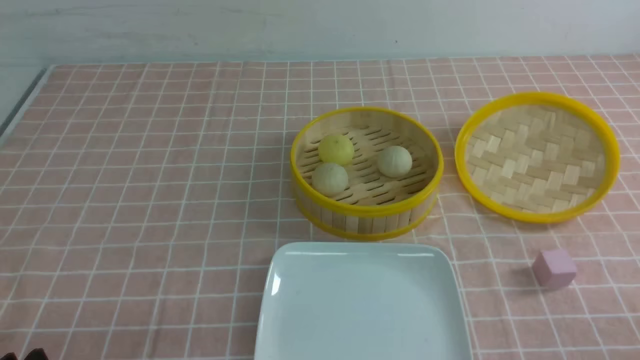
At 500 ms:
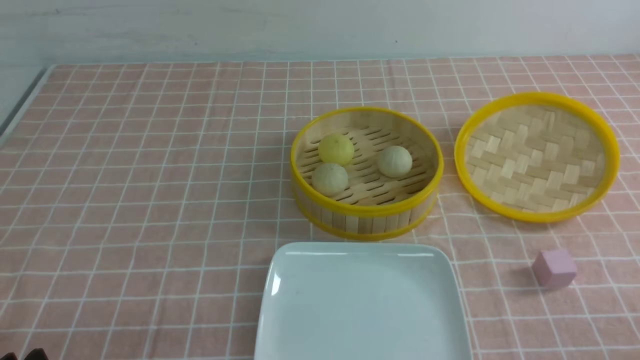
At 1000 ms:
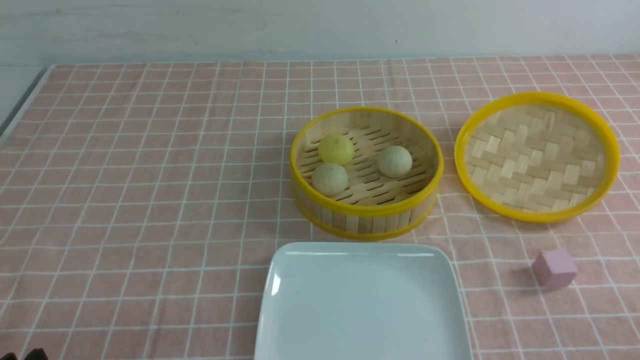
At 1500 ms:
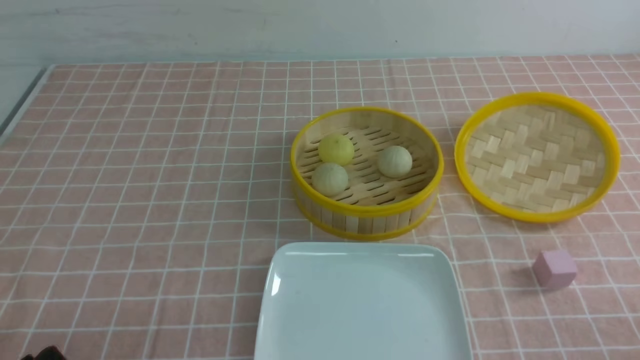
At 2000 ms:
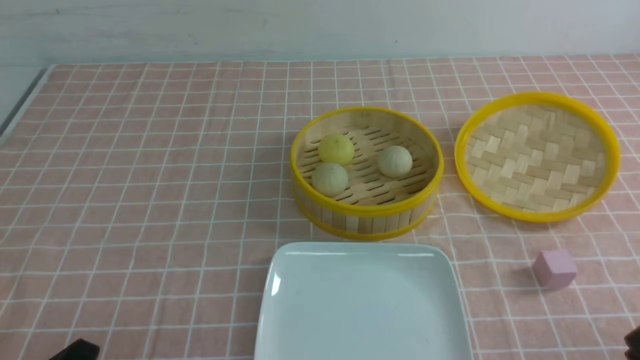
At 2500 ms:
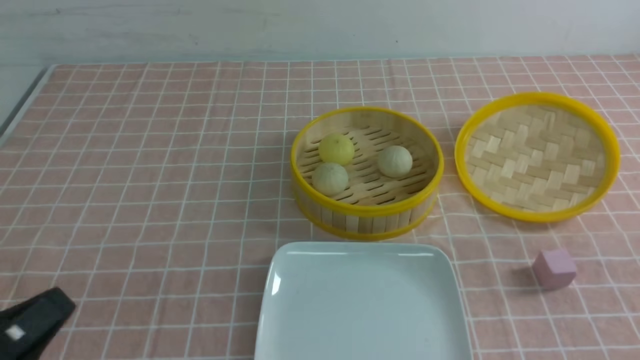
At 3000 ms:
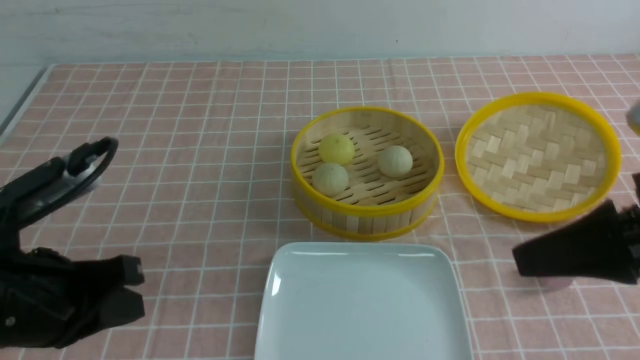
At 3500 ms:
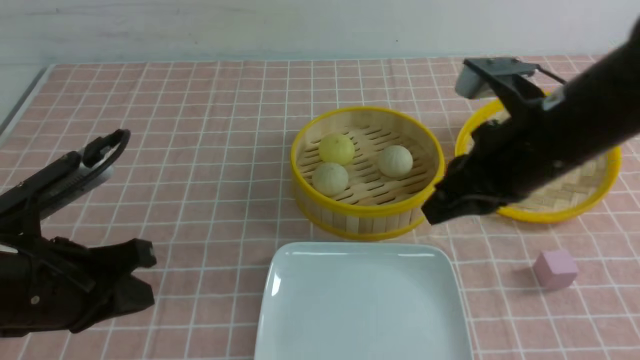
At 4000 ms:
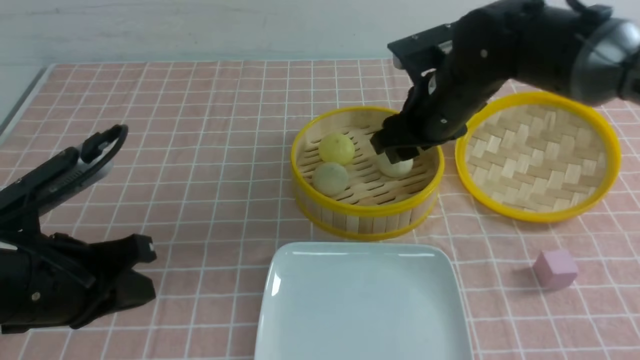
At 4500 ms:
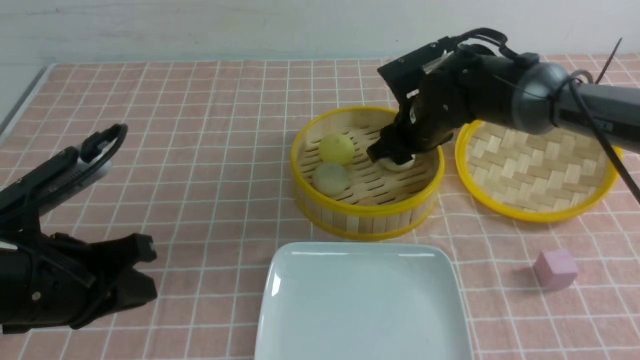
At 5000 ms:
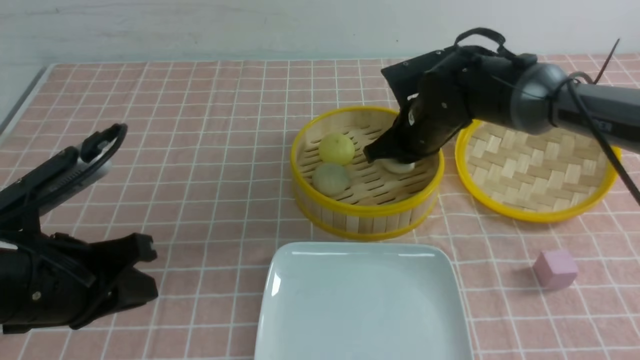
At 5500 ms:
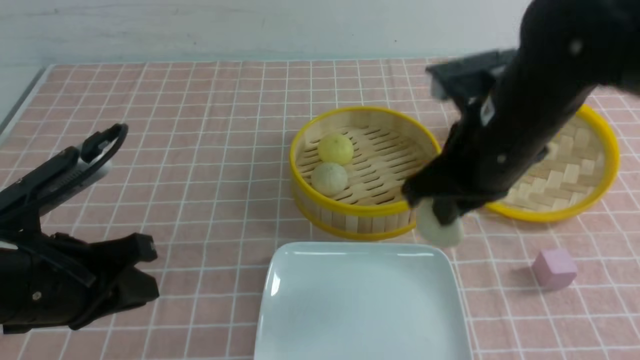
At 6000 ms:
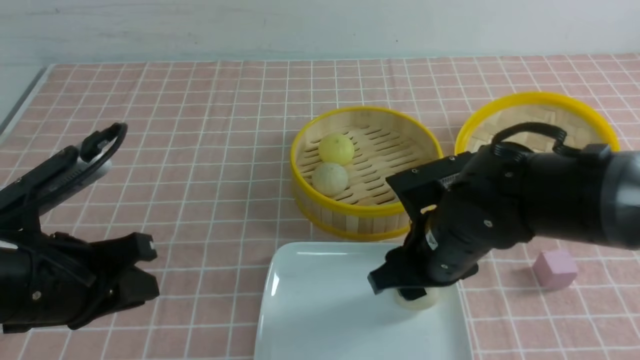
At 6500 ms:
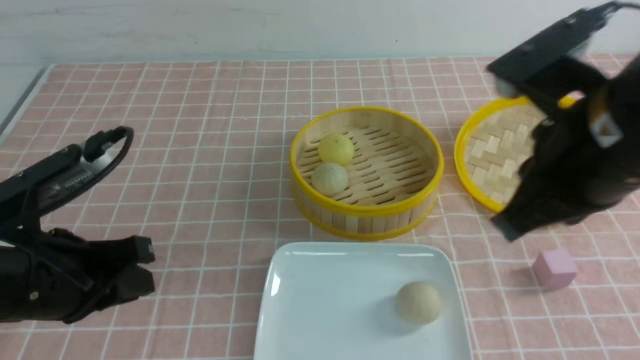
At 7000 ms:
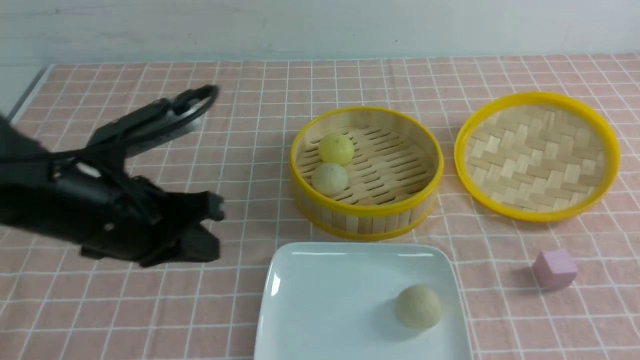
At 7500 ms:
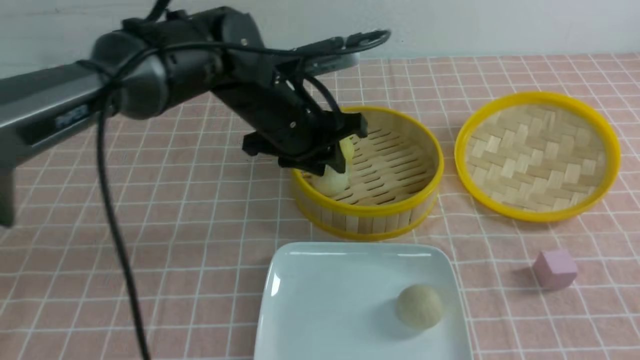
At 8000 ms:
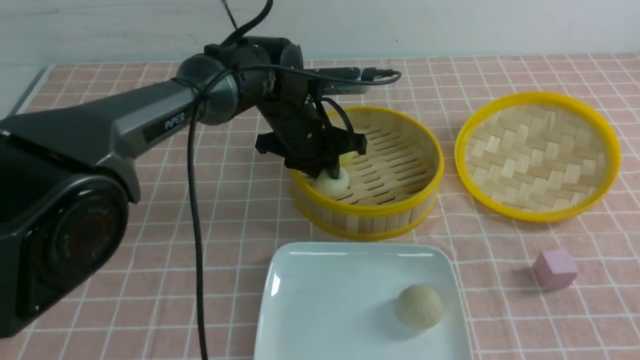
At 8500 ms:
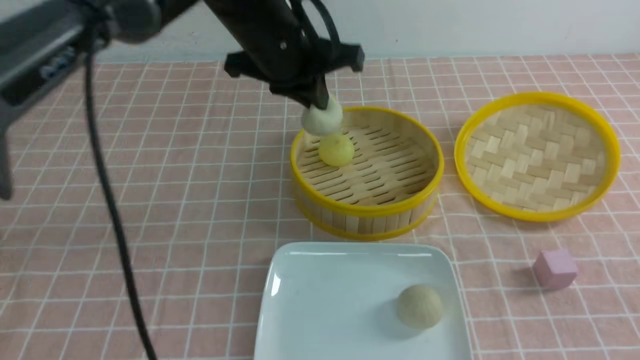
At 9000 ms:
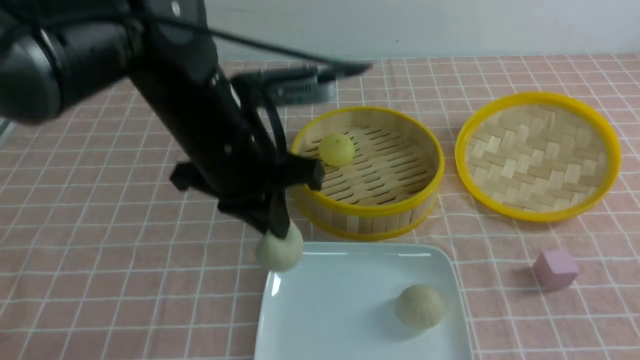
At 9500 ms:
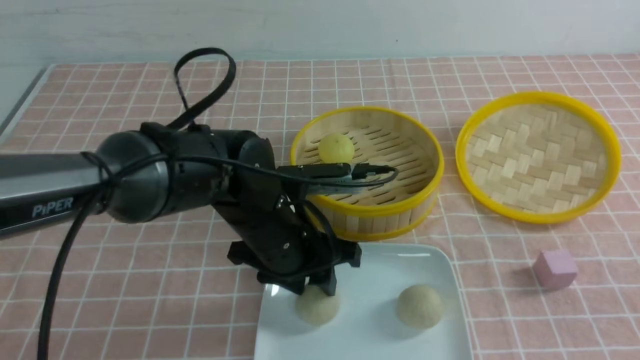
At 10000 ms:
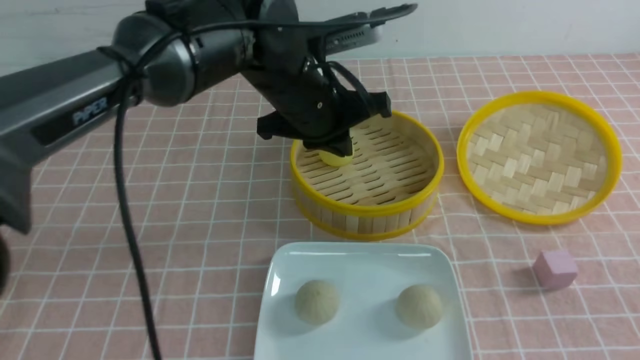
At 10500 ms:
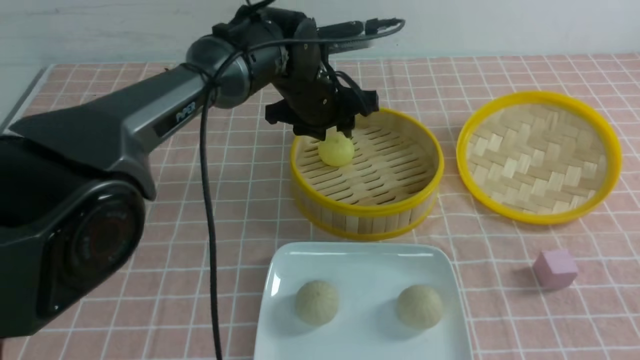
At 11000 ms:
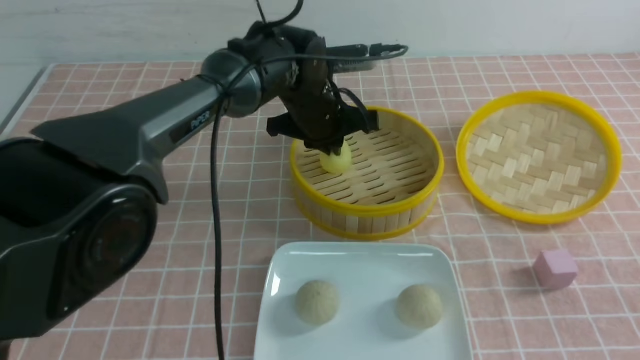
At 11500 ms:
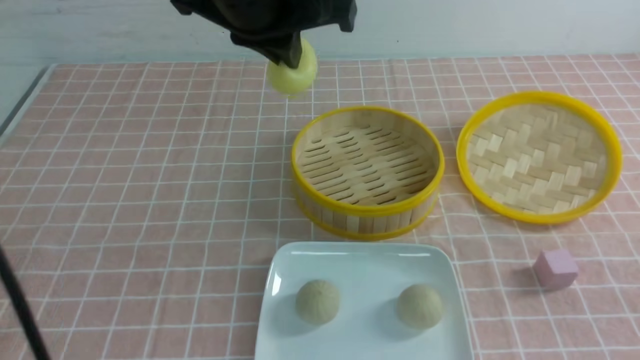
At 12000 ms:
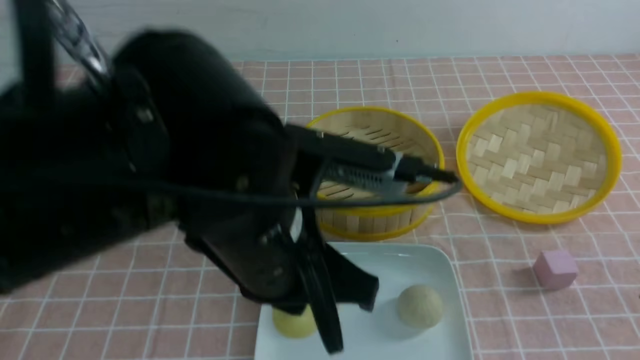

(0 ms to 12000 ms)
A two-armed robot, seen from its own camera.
Step, 0 ms - 5000 ms: use the right arm to grab the steamed stuffed bun that is closest to it.
Step, 5500 ms - 6000 ms: use the right arm to put the steamed stuffed bun into the plate.
Step, 6500 ms - 8000 ms: use the left arm to grab the steamed stuffed bun that is closest to it.
Step, 8500 ms - 9500 ms: use the left arm to put the steamed stuffed bun into the plate.
Step, 10000 ms - 10500 ms: use the left arm to grab the steamed stuffed bun that is closest to it.
2000 ms - 4000 ms: The left gripper travels forward and upward by roughly 15 cm, and closes its fingers, while the right gripper heads forward and to the left, covering some 40 cm, and opens.
4000 ms - 6000 ms: The right gripper goes about 15 cm backward, and closes and opens again.
6000 ms - 8000 ms: The left gripper shifts approximately 30 cm forward and to the right, and closes and opens again, while the right gripper travels backward, to the right and upward by about 25 cm, and closes its fingers.
8000 ms - 10000 ms: The left gripper goes roughly 10 cm upward and backward, and opens, then closes once more.
10000 ms - 12000 ms: The left gripper moves backward, roughly 20 cm, and opens and closes again.

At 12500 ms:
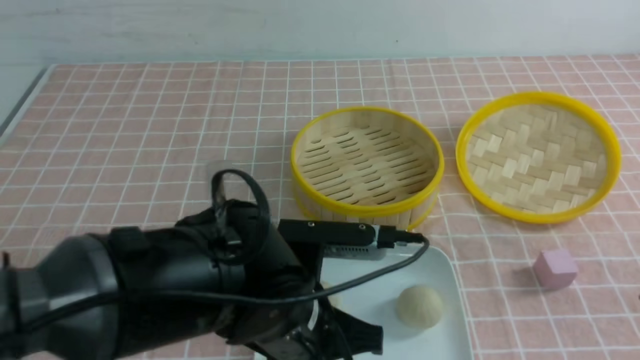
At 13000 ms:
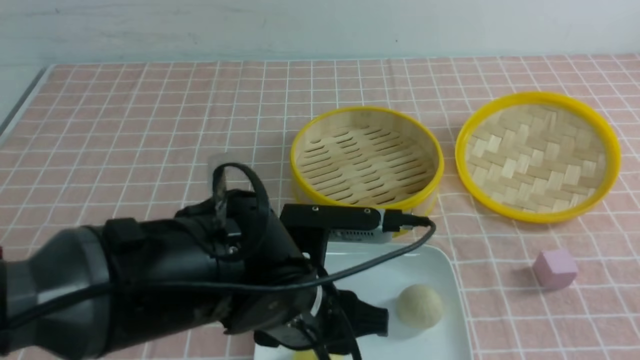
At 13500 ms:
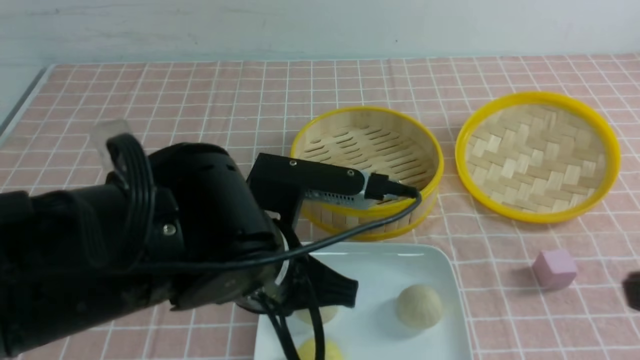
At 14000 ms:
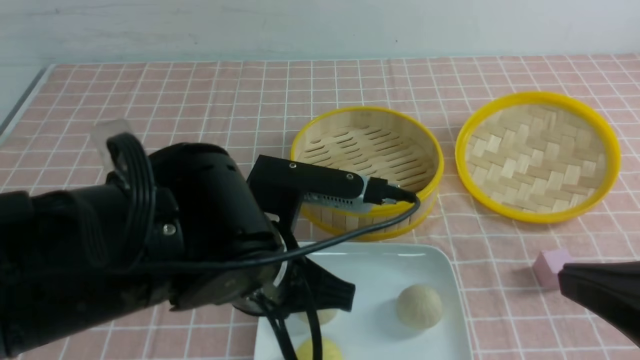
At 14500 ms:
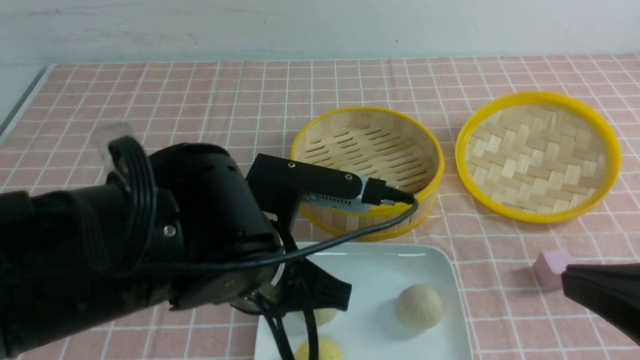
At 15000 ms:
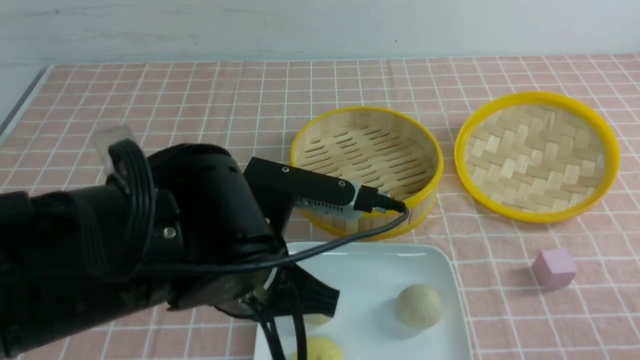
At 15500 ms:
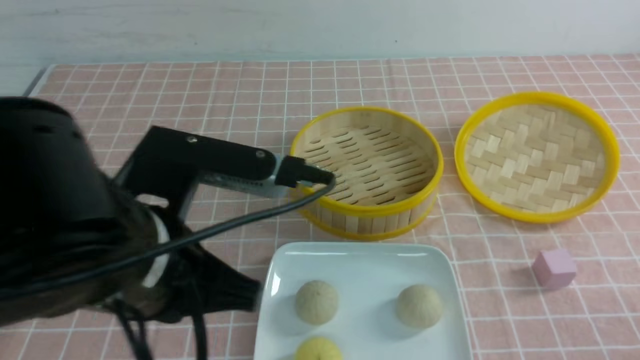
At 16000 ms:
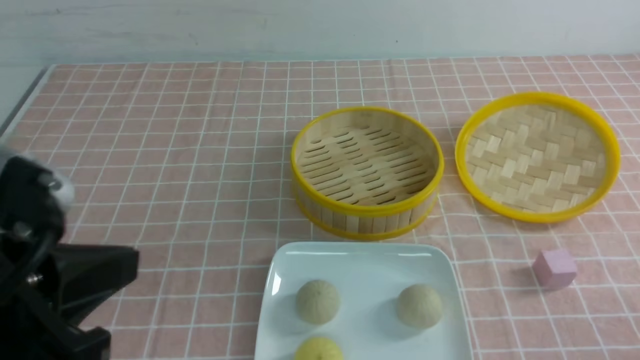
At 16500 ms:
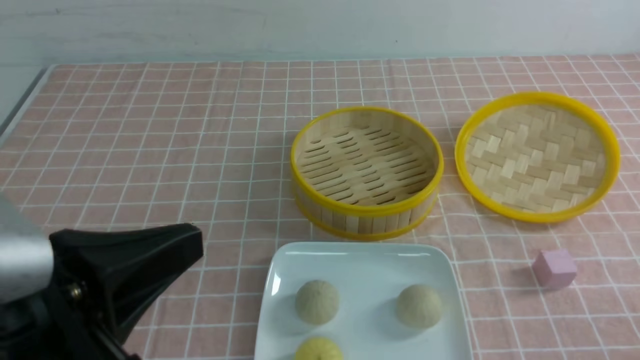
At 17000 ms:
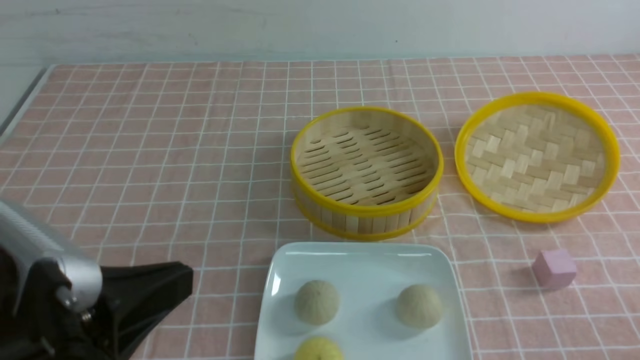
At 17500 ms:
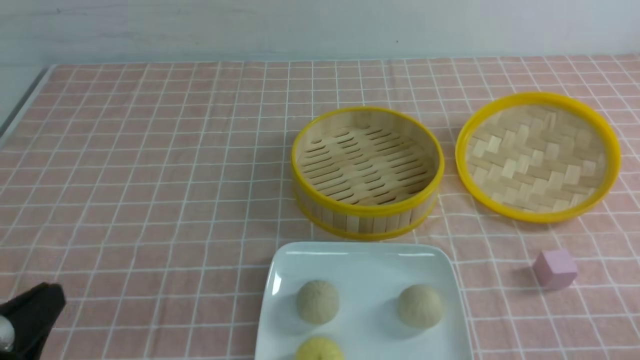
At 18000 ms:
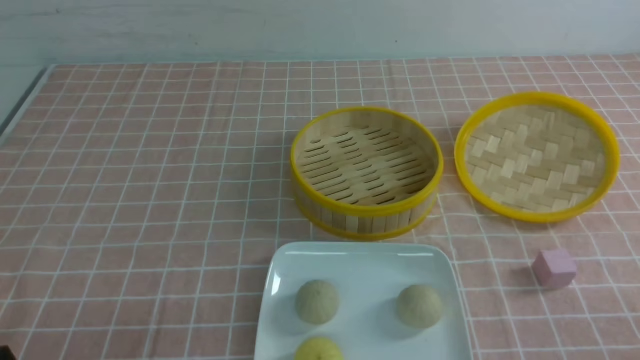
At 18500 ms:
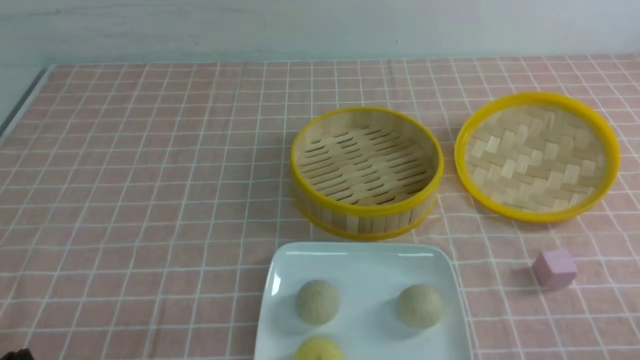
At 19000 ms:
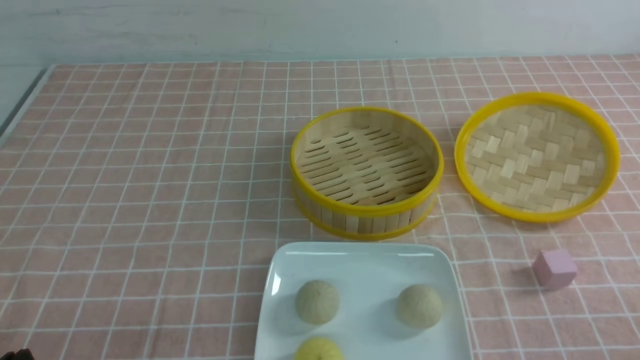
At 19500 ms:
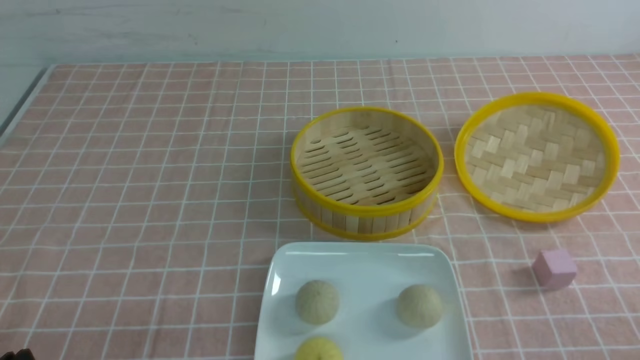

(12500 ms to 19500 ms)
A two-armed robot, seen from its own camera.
12500 ms - 14500 ms: The left gripper goes some 5 cm upward, and opens, then closes again.
14500 ms - 16000 ms: The right gripper shifts approximately 15 cm downward and to the right. The left gripper travels to the left, backward and upward by some 20 cm.
16000 ms - 17500 ms: The left gripper heads downward and to the left, covering roughly 15 cm.
17500 ms - 19500 ms: The left gripper goes approximately 5 cm downward.
